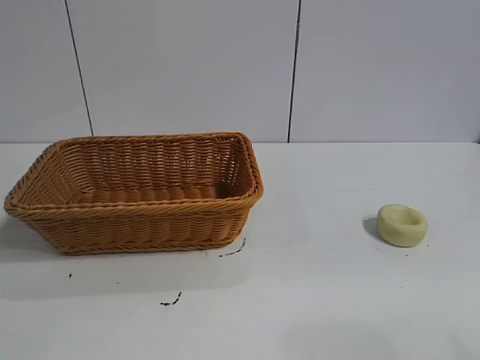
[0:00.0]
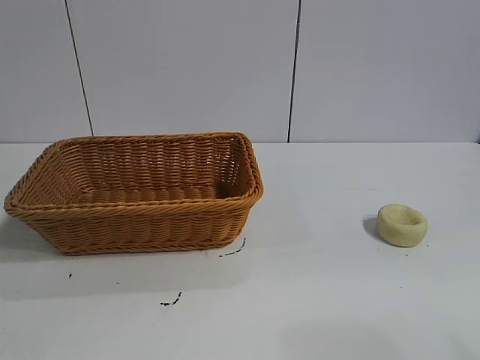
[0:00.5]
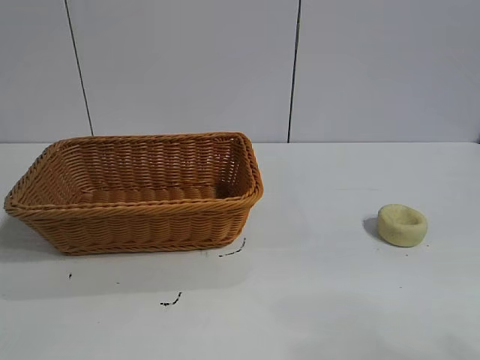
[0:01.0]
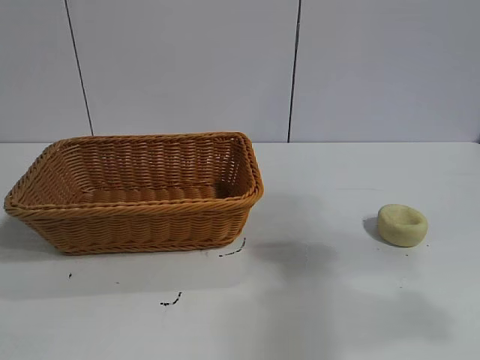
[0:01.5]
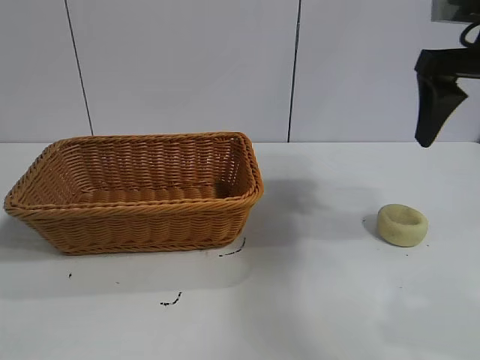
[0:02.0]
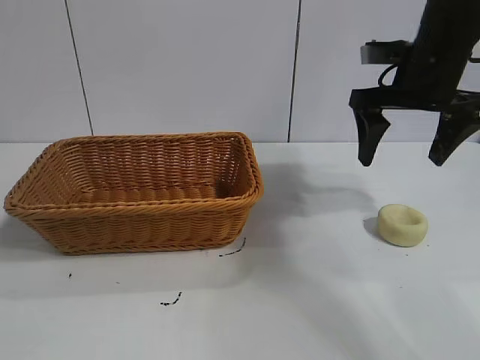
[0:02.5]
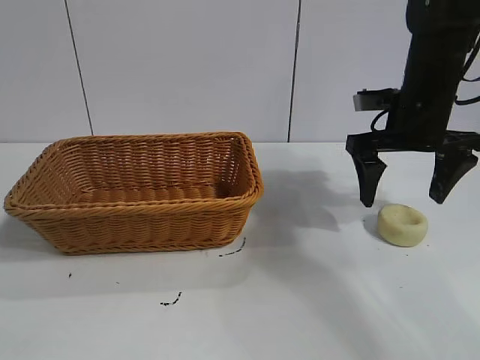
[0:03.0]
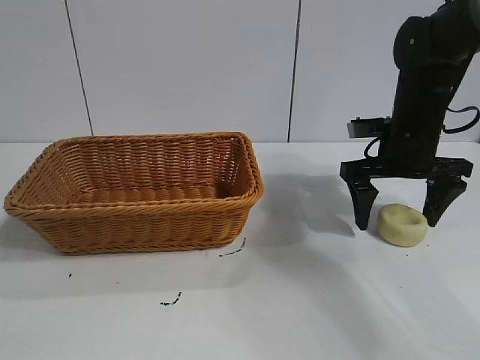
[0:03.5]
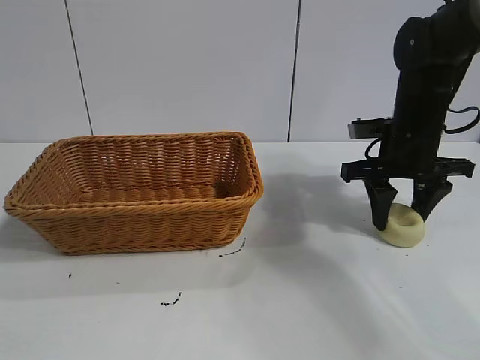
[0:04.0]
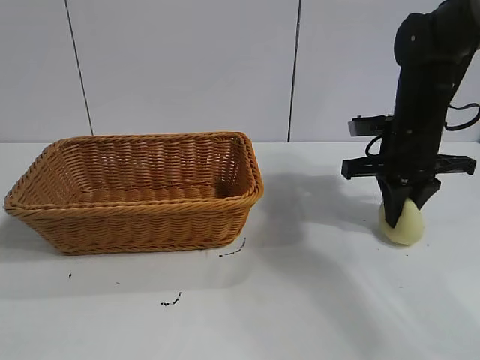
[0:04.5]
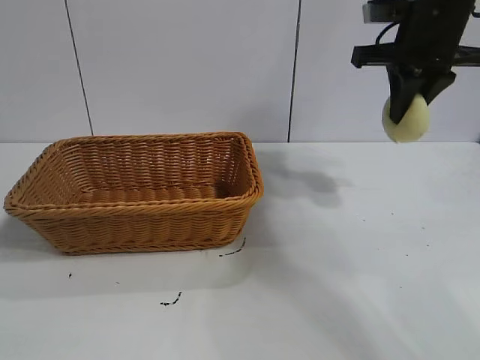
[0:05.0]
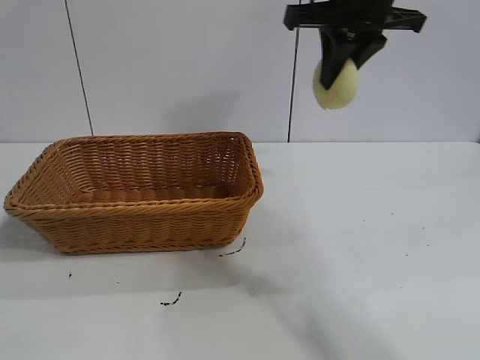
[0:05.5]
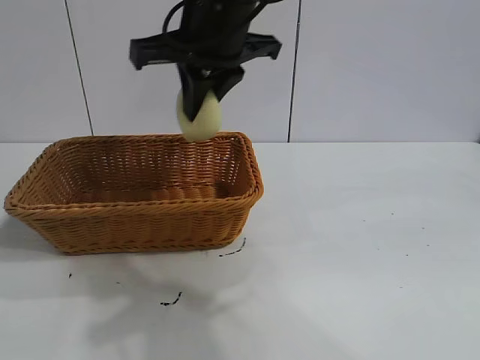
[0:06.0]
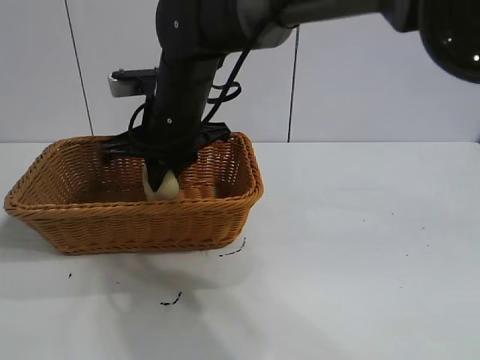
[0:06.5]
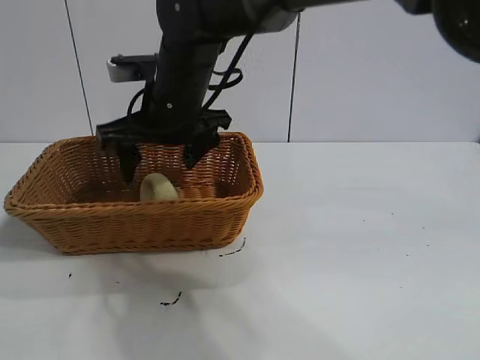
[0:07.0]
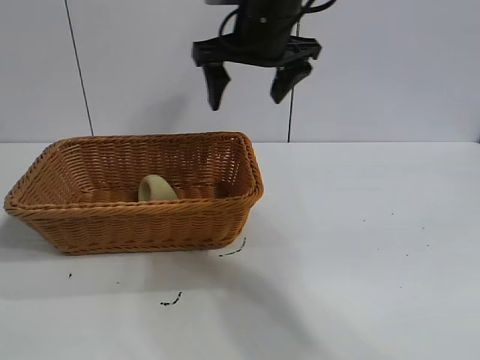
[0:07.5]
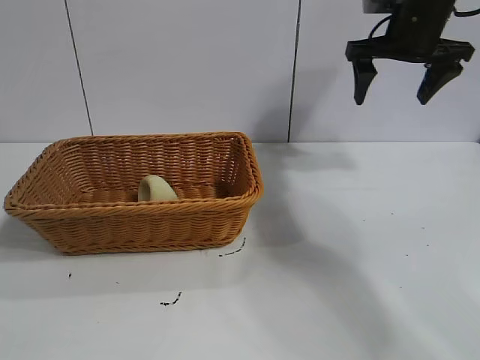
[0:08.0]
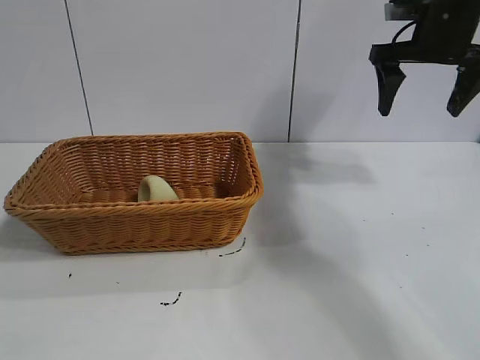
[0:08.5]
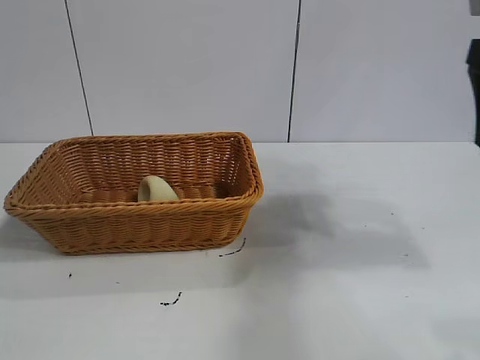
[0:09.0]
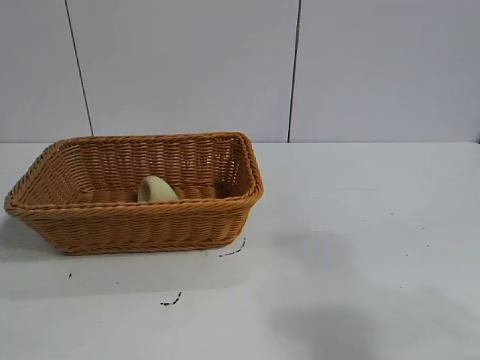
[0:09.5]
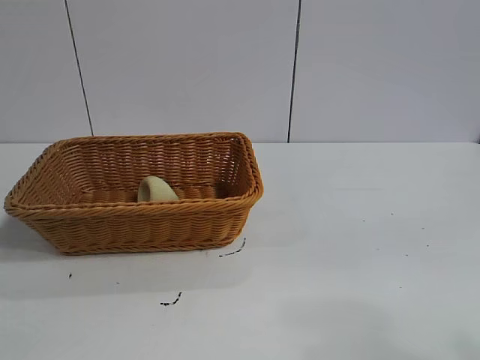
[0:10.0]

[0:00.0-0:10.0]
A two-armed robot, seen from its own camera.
Task of the whole recording: pick up the egg yolk pastry and put it into the basket.
Step, 0:01.0 to 0:04.0: Grasp egg yolk pastry with right gripper.
Step, 0:04.5 to 0:06.5: Place the egg yolk pastry in the basket with right gripper.

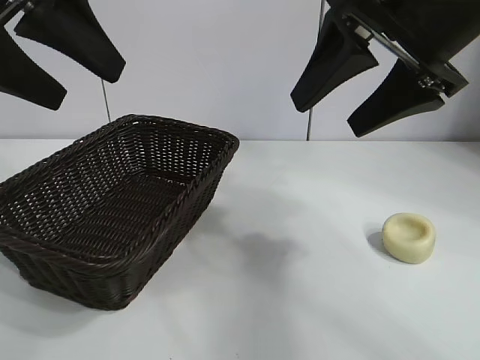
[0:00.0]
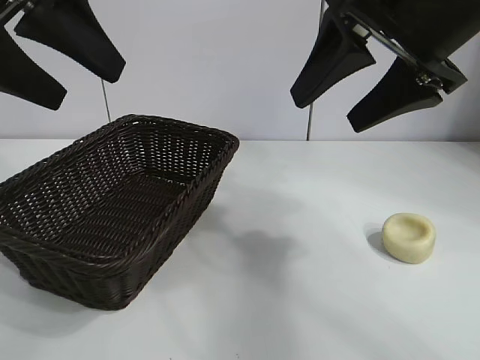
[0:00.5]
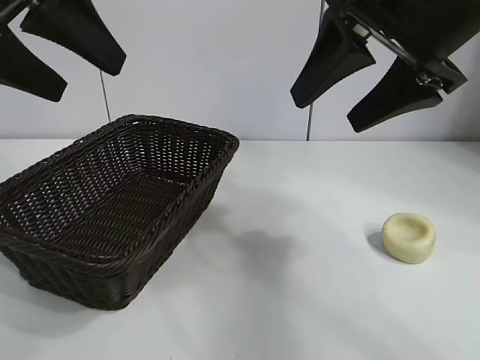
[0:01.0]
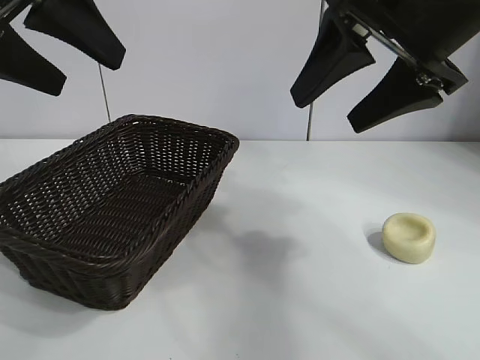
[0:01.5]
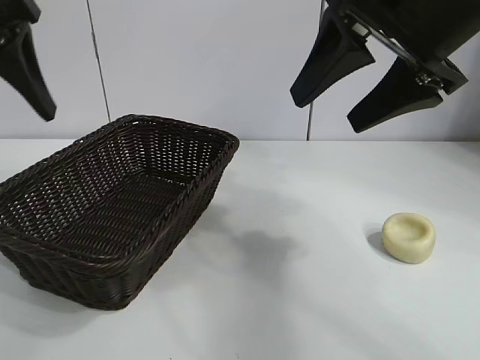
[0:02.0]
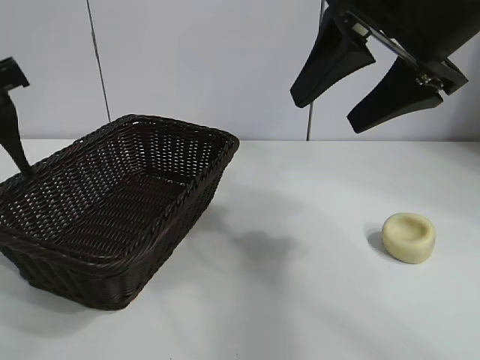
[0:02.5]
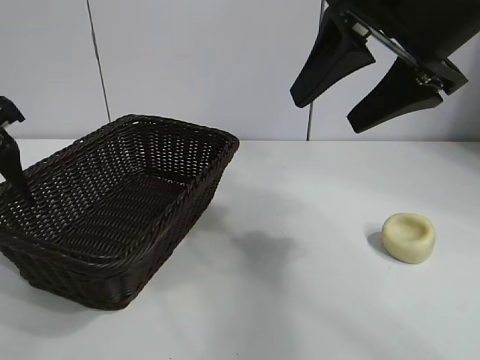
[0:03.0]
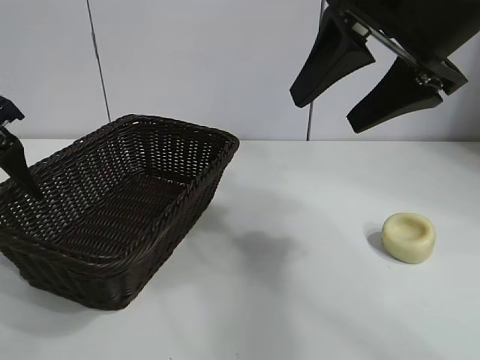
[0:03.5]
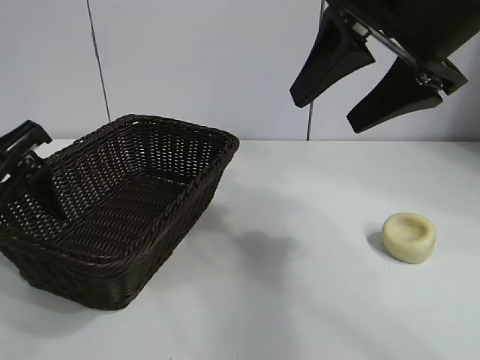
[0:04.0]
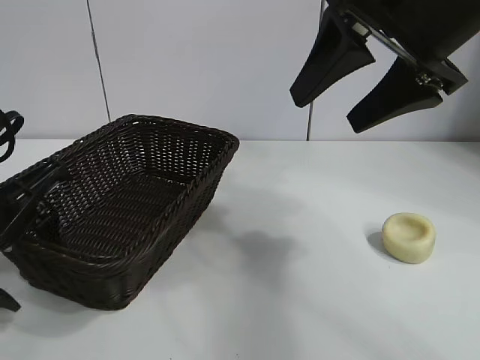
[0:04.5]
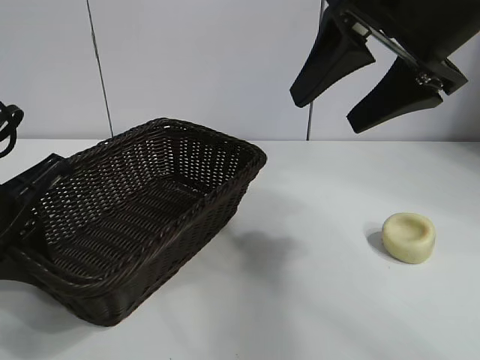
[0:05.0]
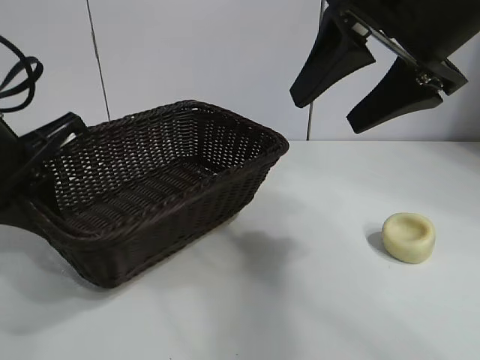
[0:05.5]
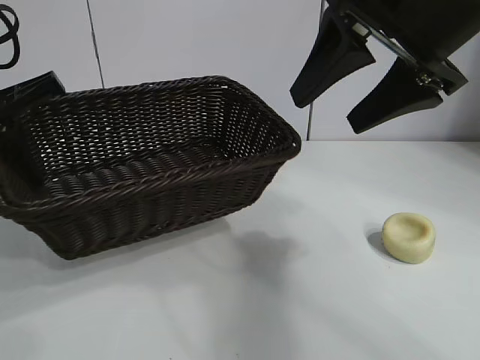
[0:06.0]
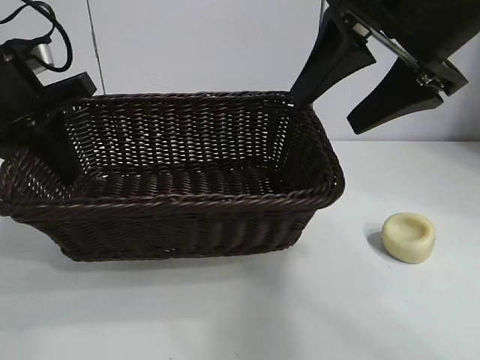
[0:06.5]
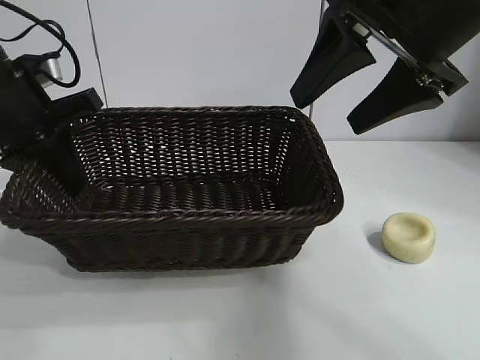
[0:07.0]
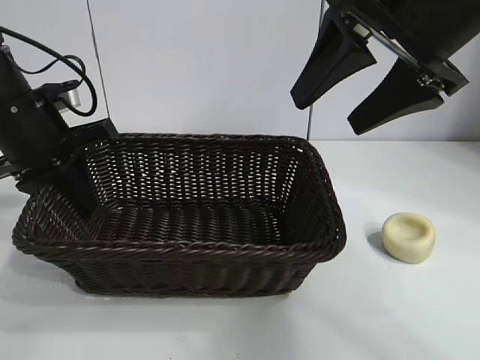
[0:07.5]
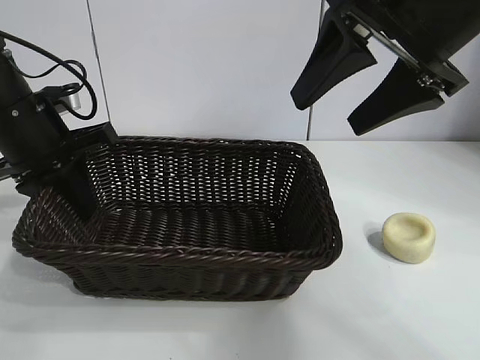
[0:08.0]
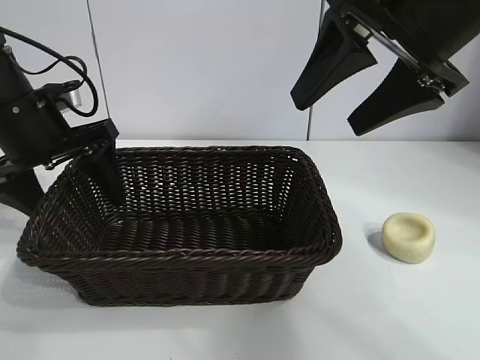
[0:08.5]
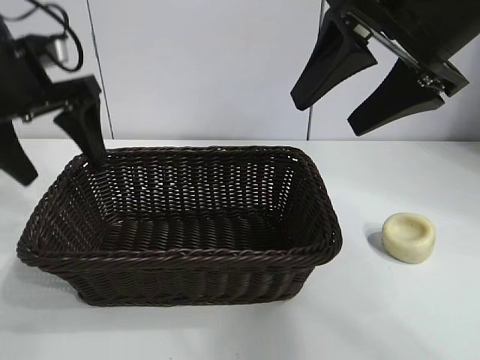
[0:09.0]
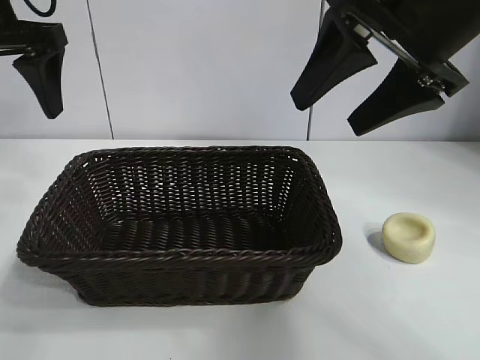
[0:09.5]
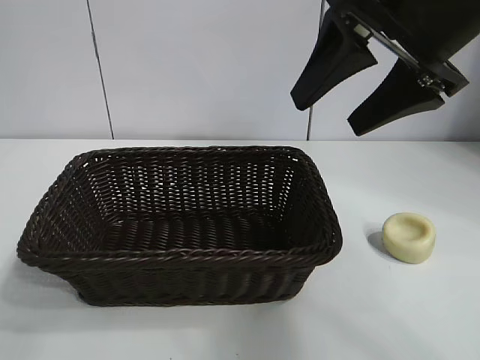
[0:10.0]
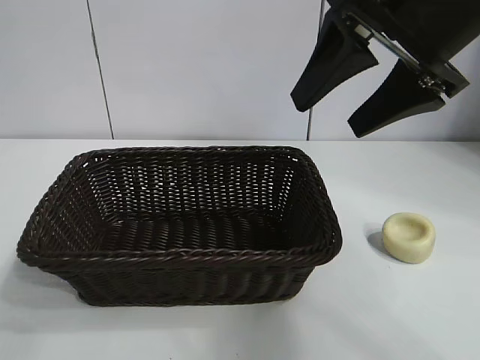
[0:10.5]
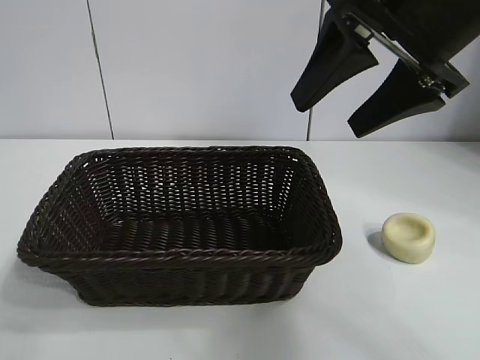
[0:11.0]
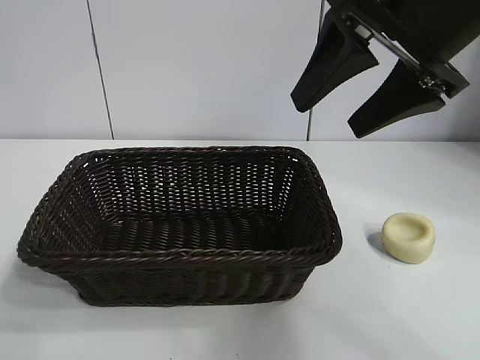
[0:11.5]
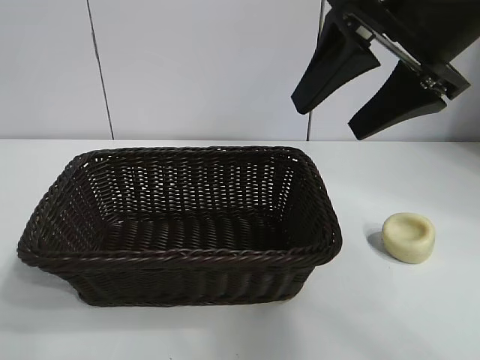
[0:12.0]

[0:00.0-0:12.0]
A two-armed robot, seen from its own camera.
Task of the whole recording: pick up the egg yolk pastry and put it into the basket.
Step, 0:01.0 to 0:04.5: Grasp the basket with left gripper.
Step, 0:05.0 to 0:08.5: Place the basket in the center of view with left gripper.

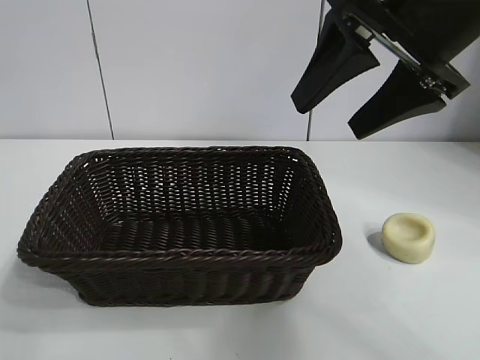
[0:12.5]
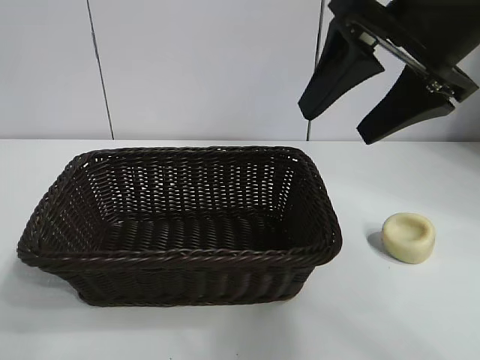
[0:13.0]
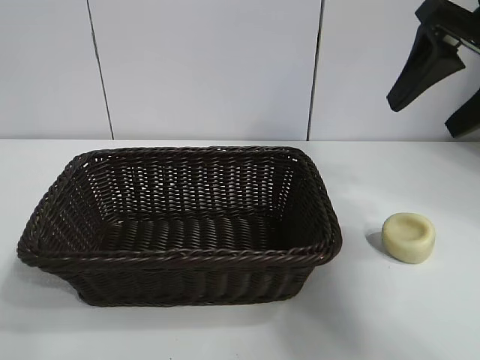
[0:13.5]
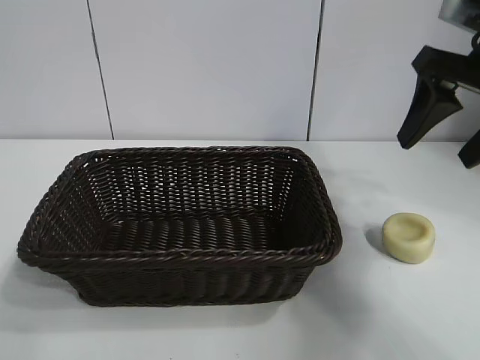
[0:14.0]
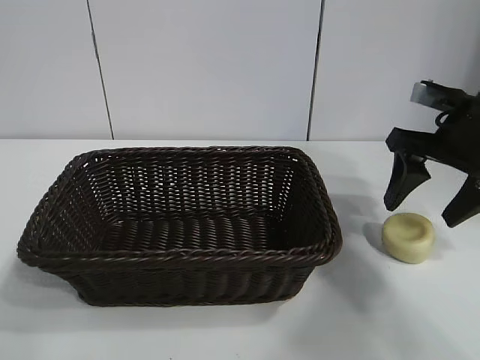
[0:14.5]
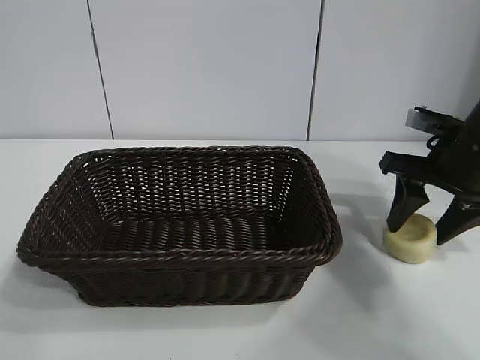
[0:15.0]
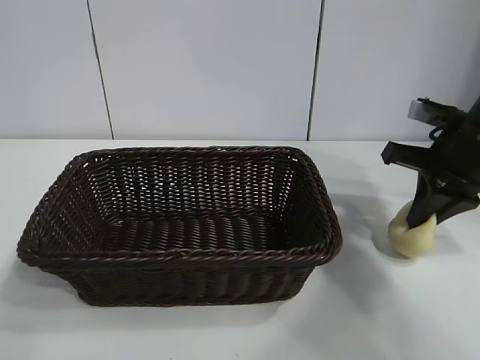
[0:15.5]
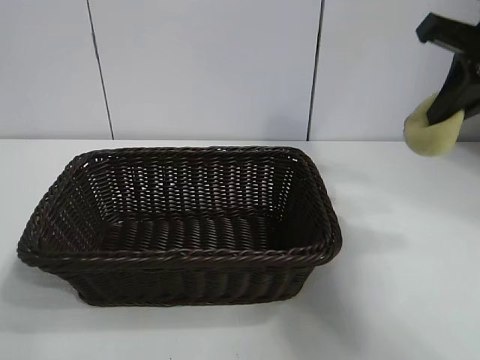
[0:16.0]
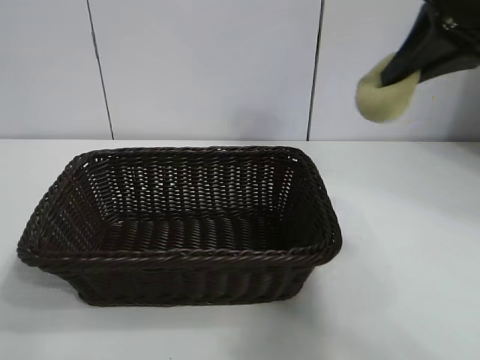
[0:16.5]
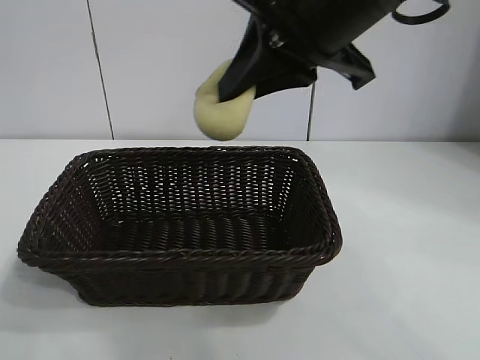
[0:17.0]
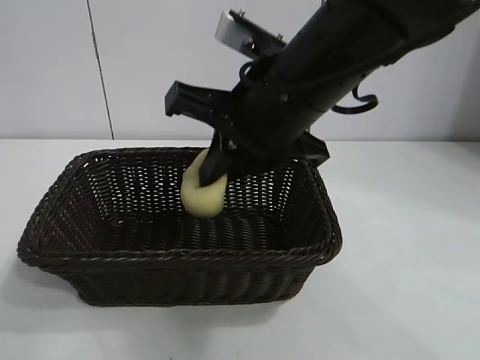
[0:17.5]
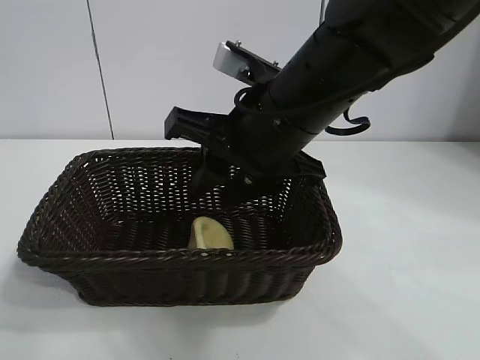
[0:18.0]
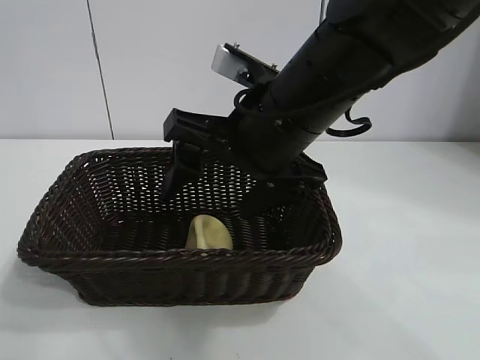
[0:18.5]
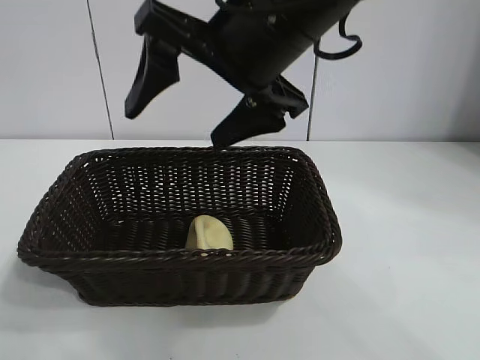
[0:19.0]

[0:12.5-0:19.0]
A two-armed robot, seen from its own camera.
Task of the whole recording: pick up the egg yolk pastry and put it into the basket.
Step, 0:12.5 to 0:15.0: Grasp egg yolk pastry with right gripper.
Step, 0:15.5 to 0:18.0: Place the egg yolk pastry in the basket with right gripper.
